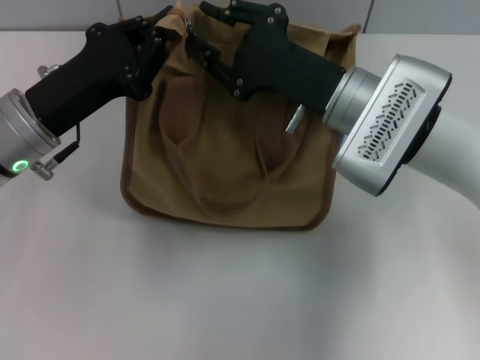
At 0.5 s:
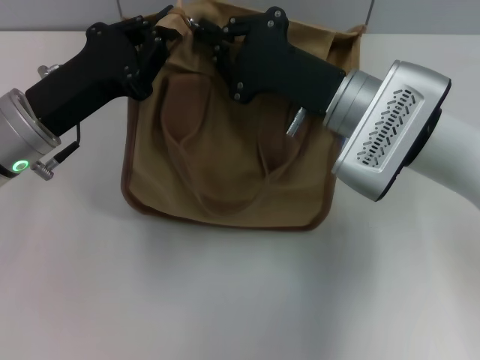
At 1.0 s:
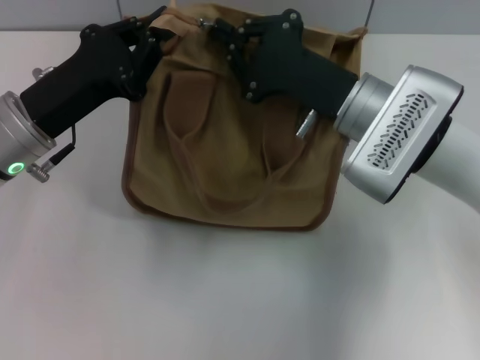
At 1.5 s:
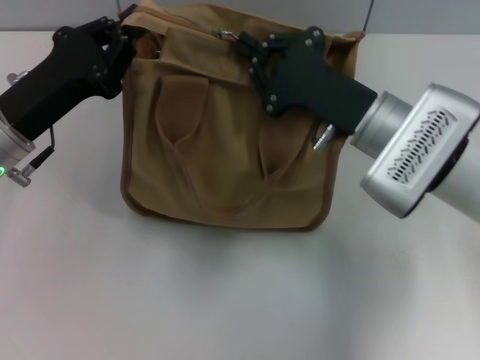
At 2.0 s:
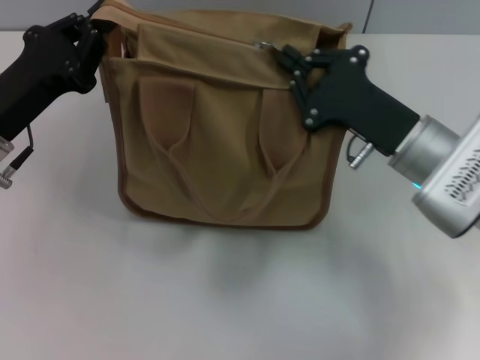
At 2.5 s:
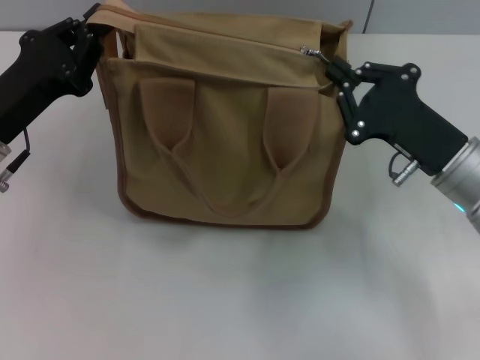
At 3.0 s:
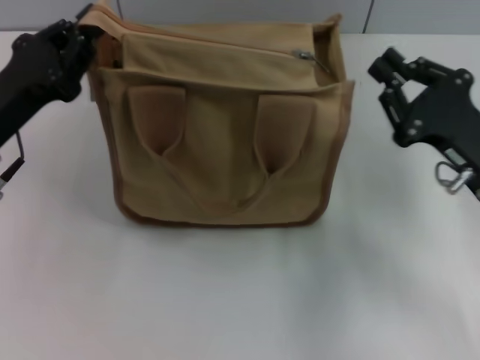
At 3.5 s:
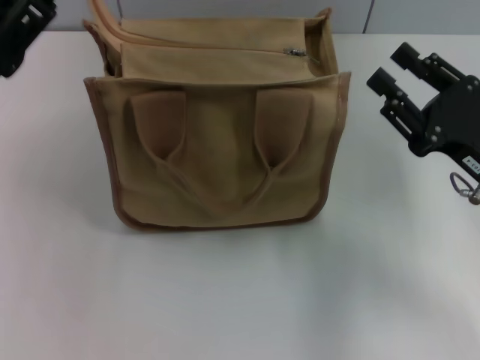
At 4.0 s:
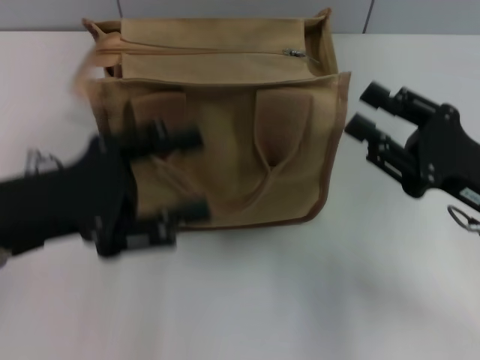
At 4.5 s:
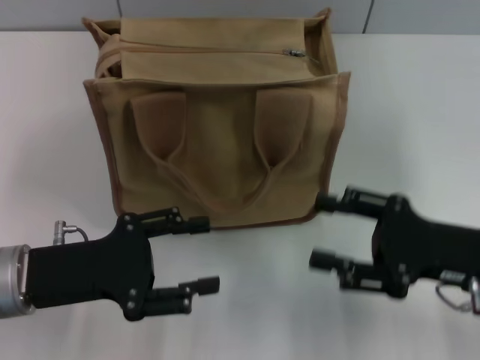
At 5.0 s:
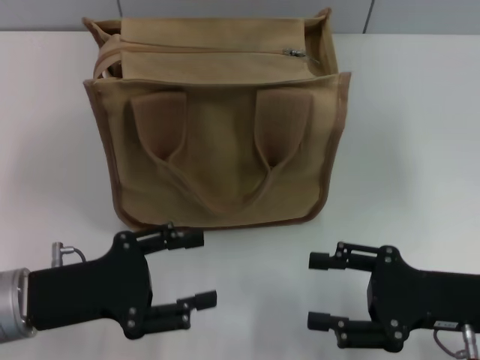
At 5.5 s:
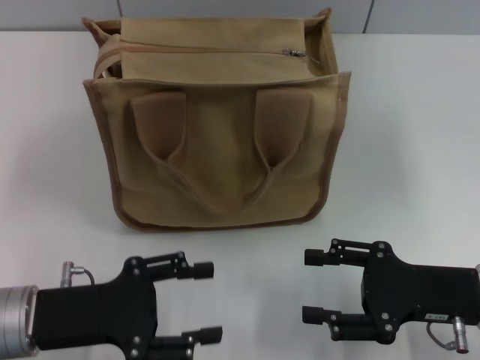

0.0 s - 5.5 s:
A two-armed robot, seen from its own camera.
Step, 0.0 s - 2.5 s: Pull up the zipper with your right hand.
Step, 3.0 s - 3.5 s: Grab the zipper with your left hand.
0.0 s - 2.0 s: The right gripper goes approximately 5 cm to the right, and closes its fingers.
2.0 s - 3.5 s: The right gripper travels to the right by approximately 10 cm, and opens, while the left gripper opens its fingers.
3.5 s - 5.5 s: The left gripper travels downward and backward by roughly 10 cm, and opens, while the right gripper ends up approximately 5 cm from where it was.

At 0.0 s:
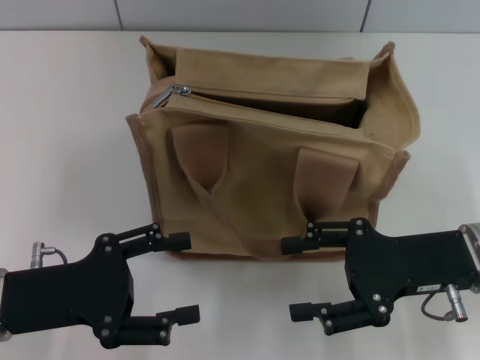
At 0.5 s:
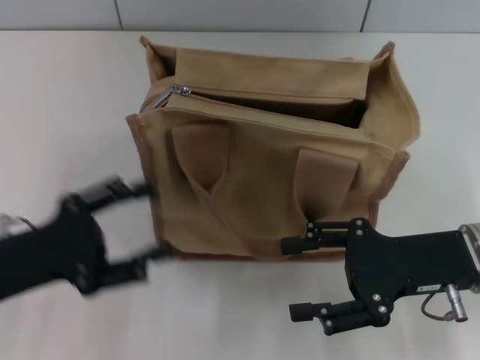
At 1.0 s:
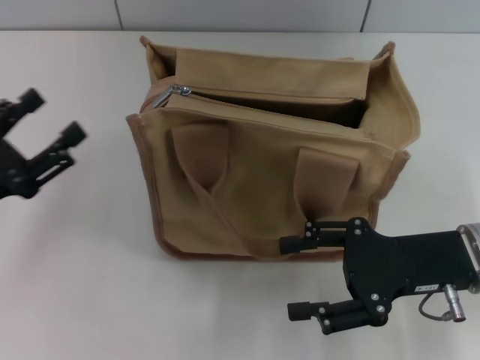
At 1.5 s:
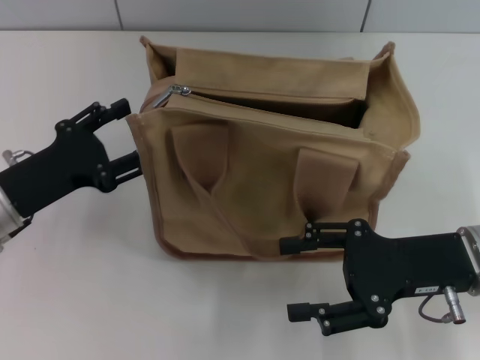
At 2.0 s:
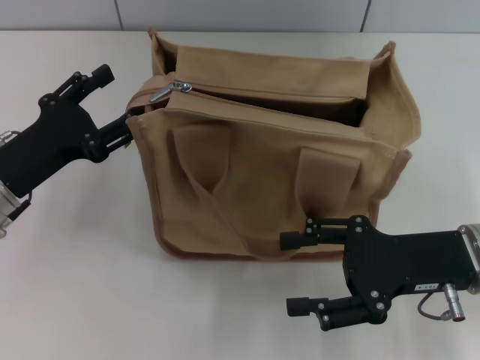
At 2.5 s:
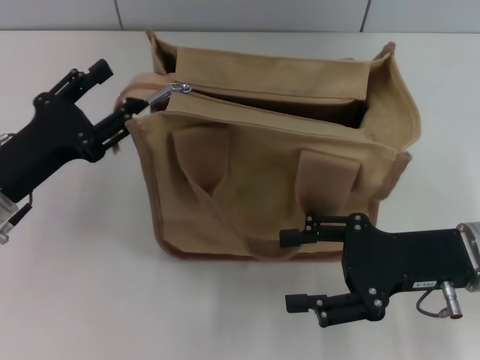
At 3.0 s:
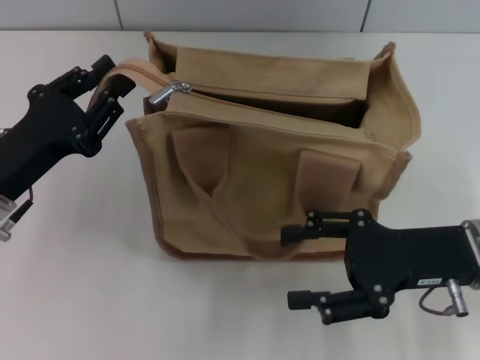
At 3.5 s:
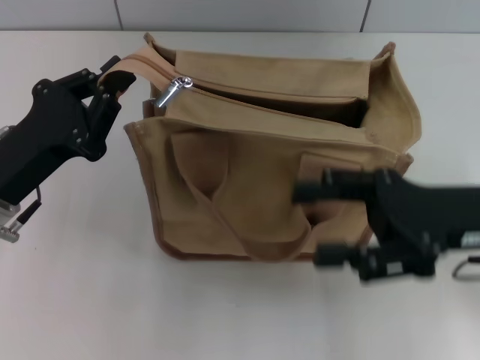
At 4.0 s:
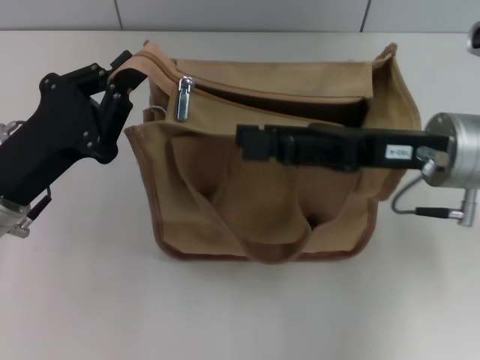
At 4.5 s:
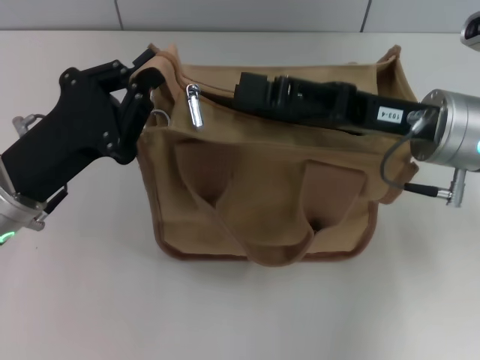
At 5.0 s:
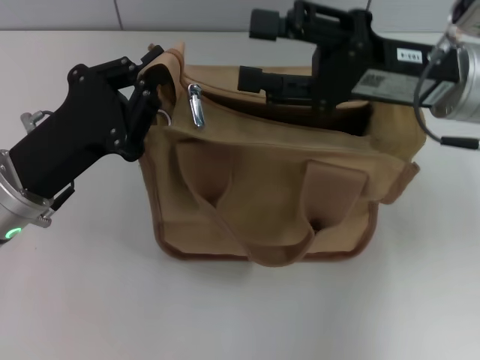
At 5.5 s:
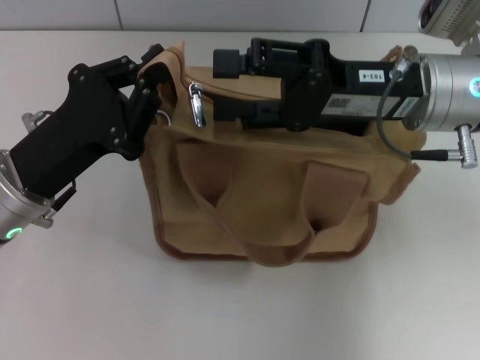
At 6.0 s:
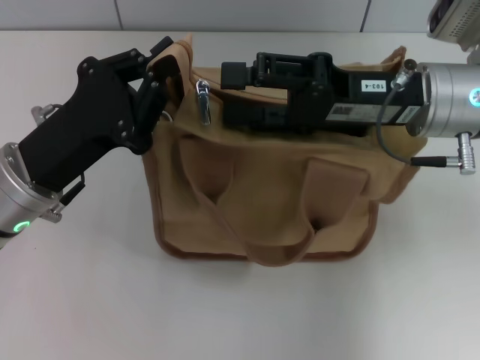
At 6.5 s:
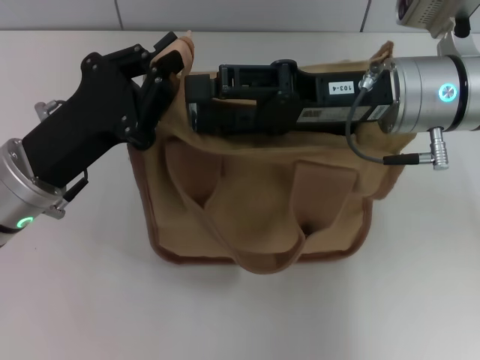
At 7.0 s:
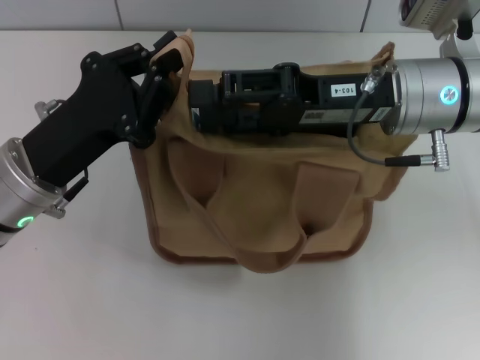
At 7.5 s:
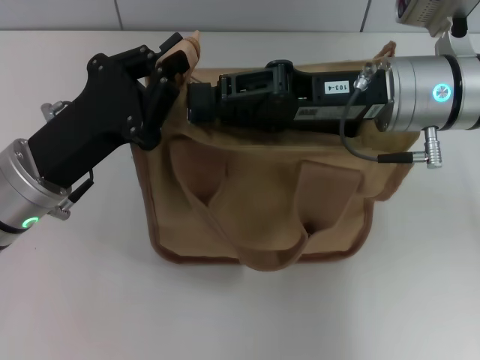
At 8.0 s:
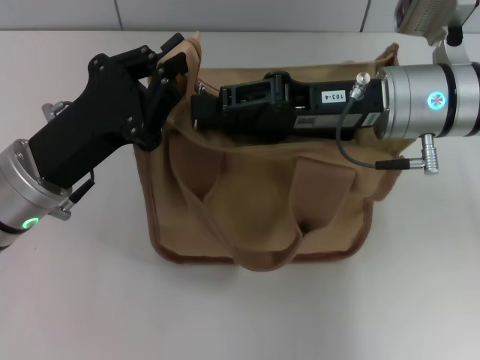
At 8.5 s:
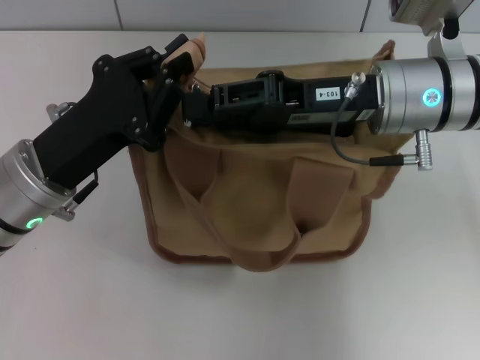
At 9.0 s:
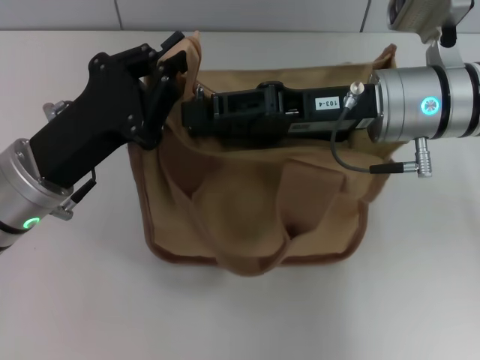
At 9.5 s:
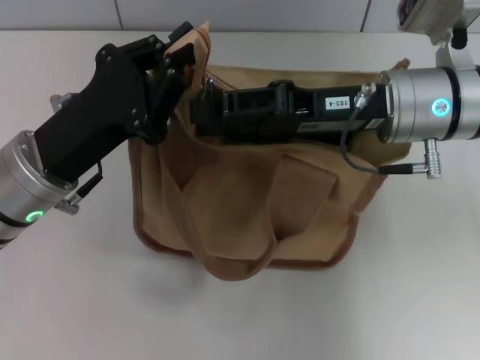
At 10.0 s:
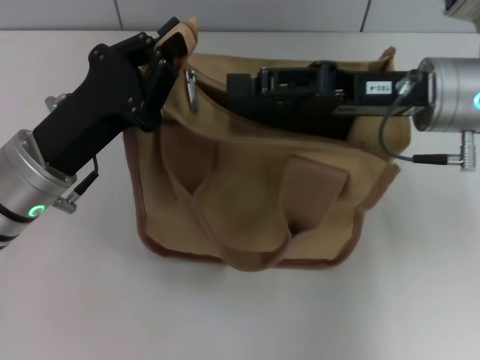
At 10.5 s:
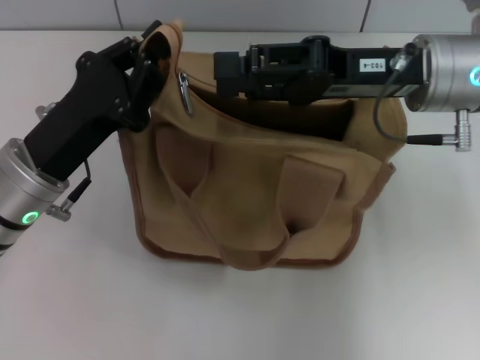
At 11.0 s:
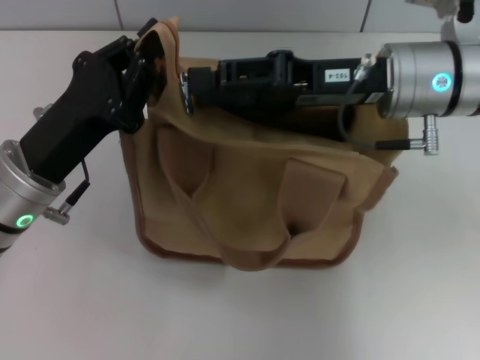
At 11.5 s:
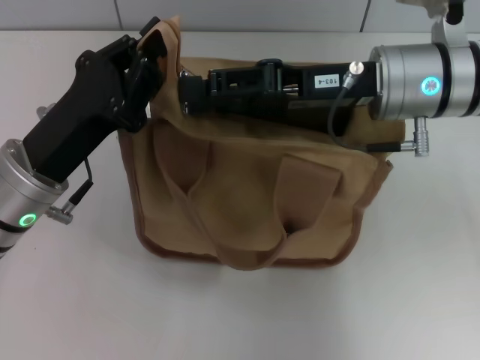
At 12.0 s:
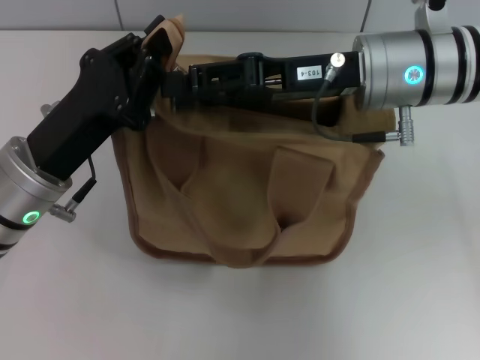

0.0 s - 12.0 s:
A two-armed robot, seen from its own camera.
0.0 s - 2.0 s: The left gripper moves forward, roughly 5 cm.
2.0 s - 4.0 s: The left gripper closes its fingers; the right gripper moves forward and upward, approximately 10 cm.
6.0 s - 8.0 s: The right gripper closes up.
10.0 s - 12.0 s: The right gripper heads to the left, covering about 5 cm.

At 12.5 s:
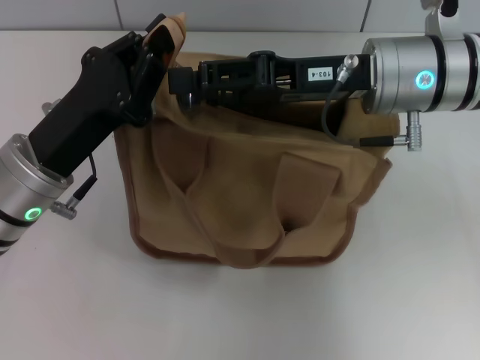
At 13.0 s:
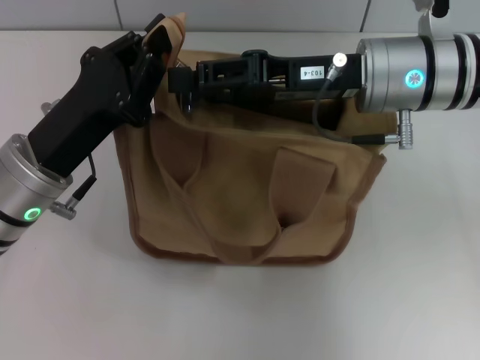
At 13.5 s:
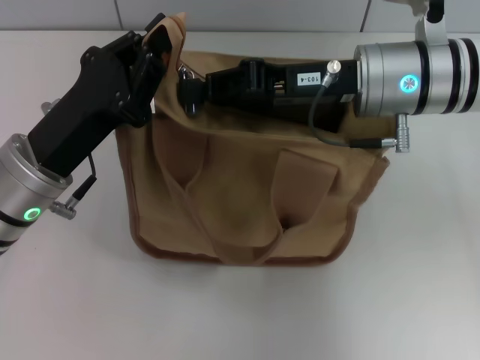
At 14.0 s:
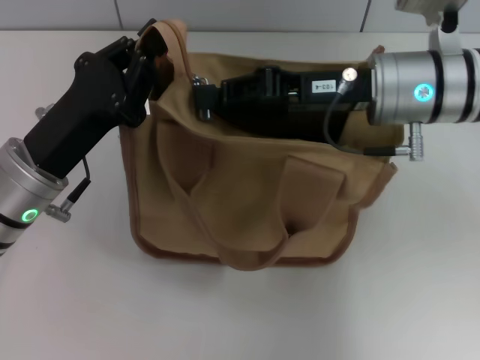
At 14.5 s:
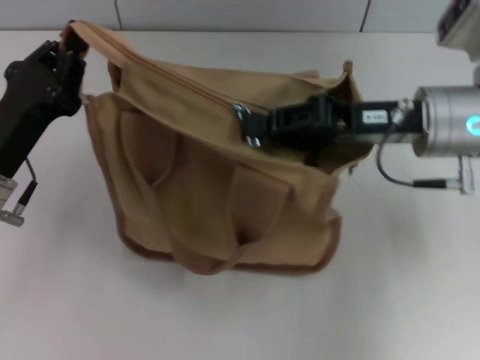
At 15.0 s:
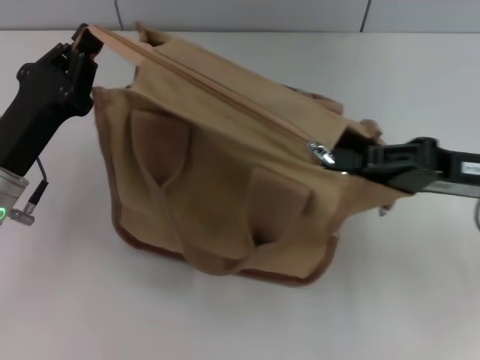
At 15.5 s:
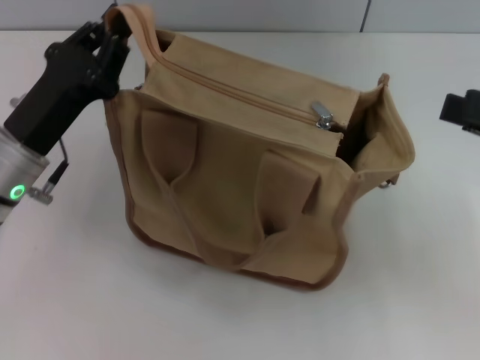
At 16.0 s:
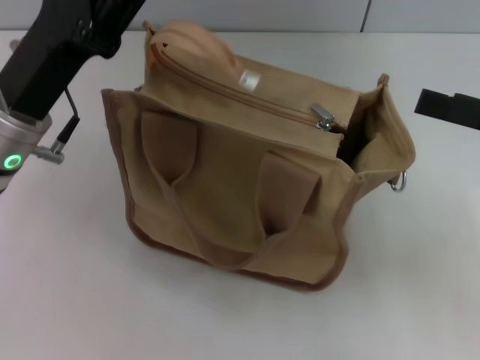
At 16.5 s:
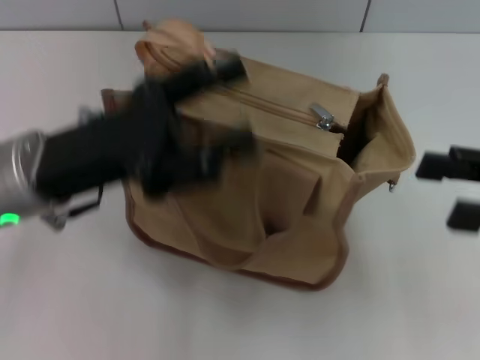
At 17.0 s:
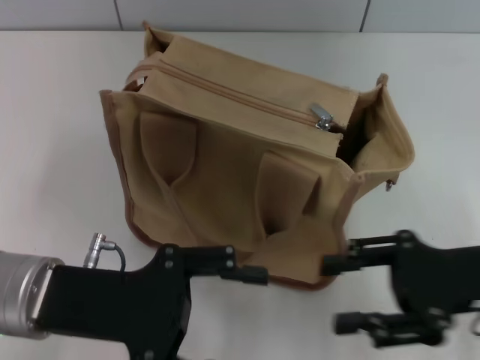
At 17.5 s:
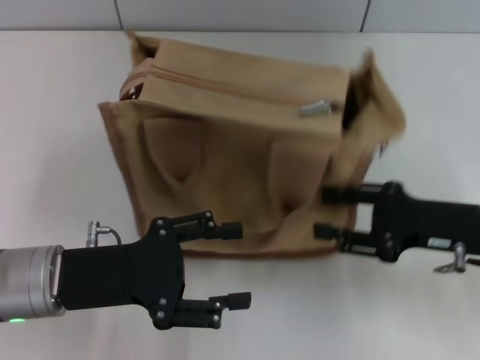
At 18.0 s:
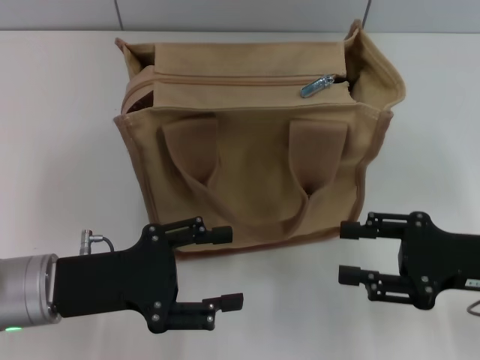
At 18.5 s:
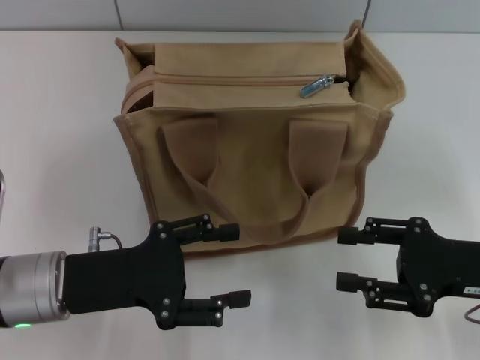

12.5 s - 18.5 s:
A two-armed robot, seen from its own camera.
Step, 12.5 s - 15.0 s: Pull up the zipper with your right hand.
Step, 15.5 s - 16.0 s: Grab the zipper with your left hand.
12.5 s - 14.5 s: The right gripper travels to the right by roughly 5 cm, and closes up.
14.5 s - 16.5 s: The right gripper moves to the right and backward, roughly 15 cm, and opens. The left gripper travels upward by about 5 cm, and opens its fingers.
16.5 s - 18.5 s: The right gripper travels downward by about 10 cm; the left gripper is displaced downward and backward by approximately 10 cm.

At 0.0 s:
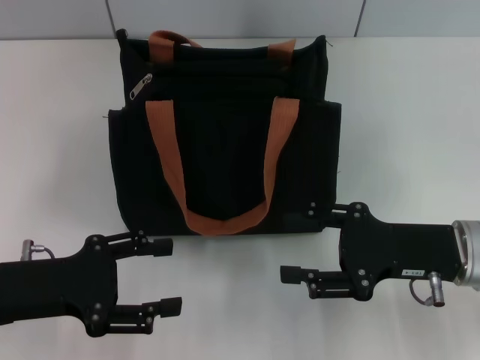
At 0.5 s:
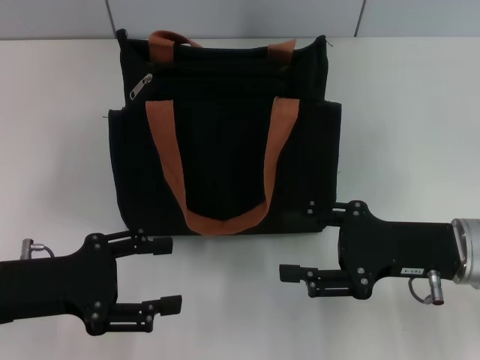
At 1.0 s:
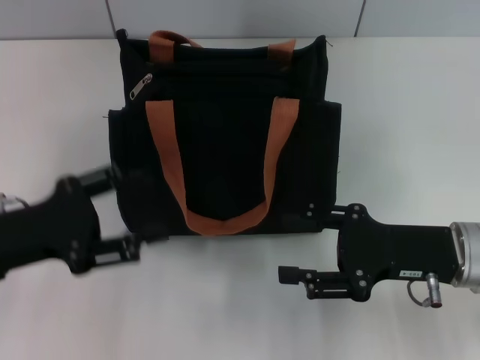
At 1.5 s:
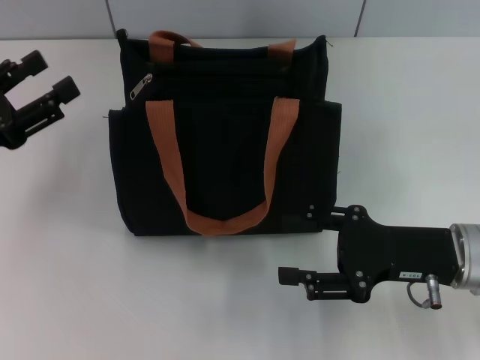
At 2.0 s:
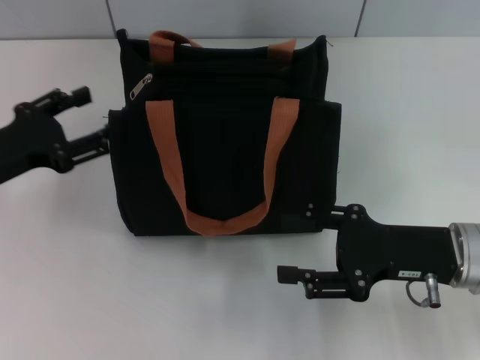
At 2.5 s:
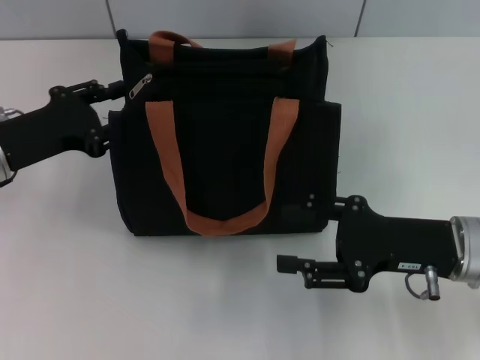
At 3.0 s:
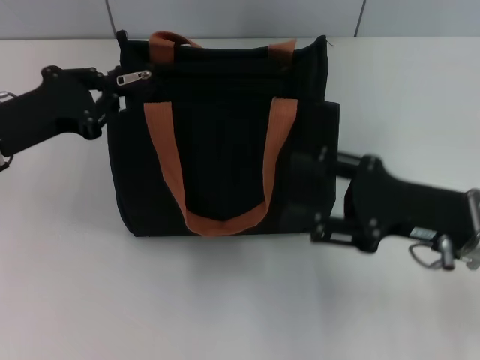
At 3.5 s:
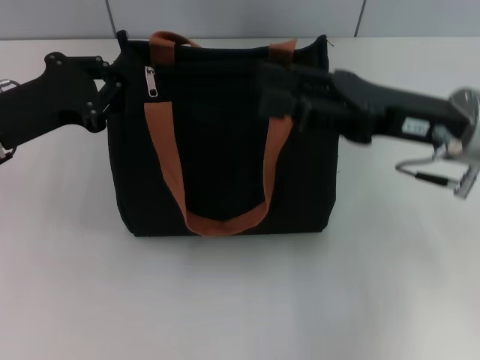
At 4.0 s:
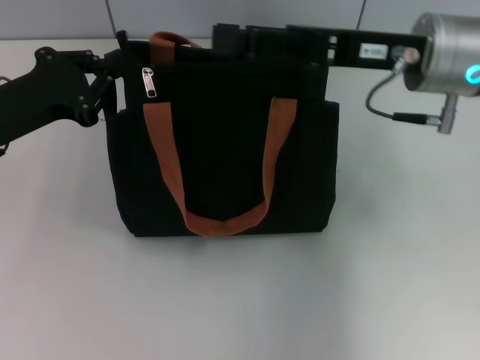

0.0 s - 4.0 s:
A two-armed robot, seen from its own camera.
0.0 s - 2.0 s: The left gripper heads forward, covering roughly 5 cm.
2.0 s - 4.0 s: The left gripper closes its fingers. The right gripper heads upward, forward and to the left, covering roughly 15 cm.
